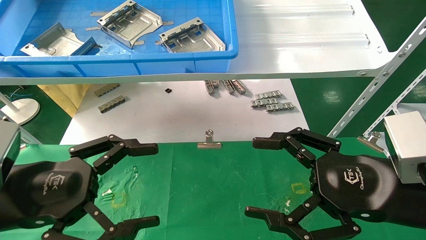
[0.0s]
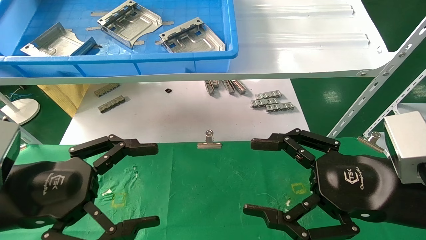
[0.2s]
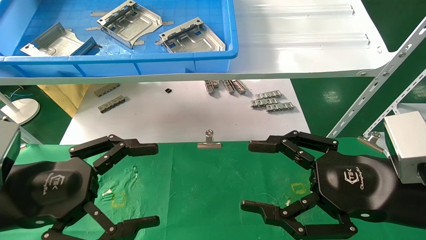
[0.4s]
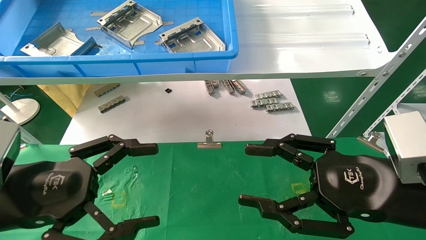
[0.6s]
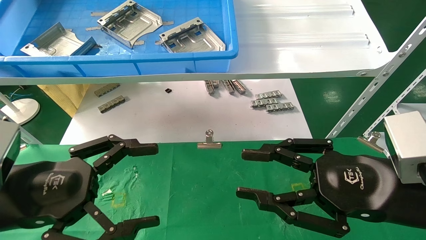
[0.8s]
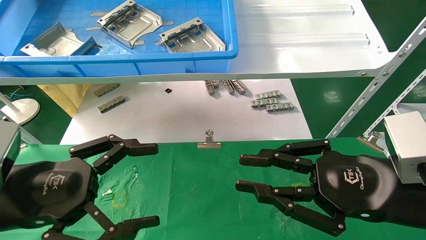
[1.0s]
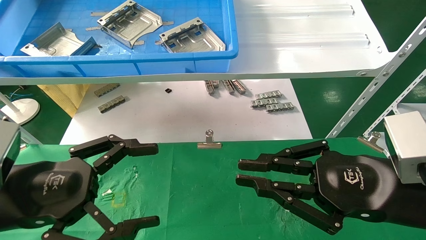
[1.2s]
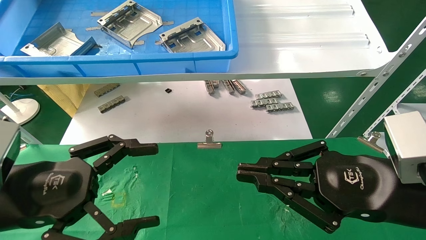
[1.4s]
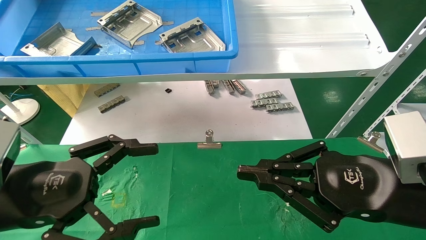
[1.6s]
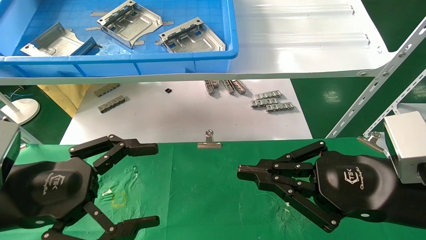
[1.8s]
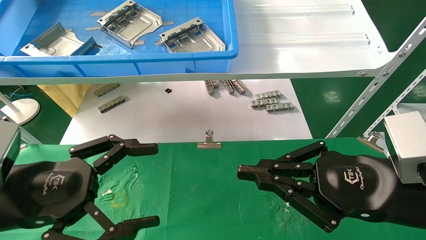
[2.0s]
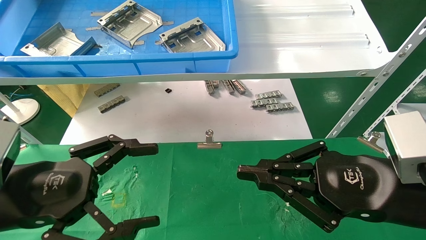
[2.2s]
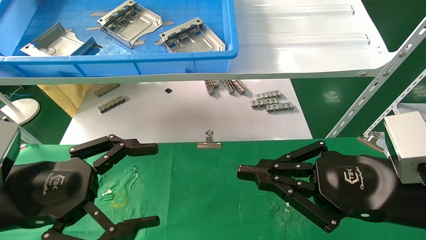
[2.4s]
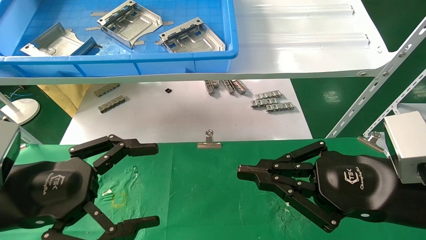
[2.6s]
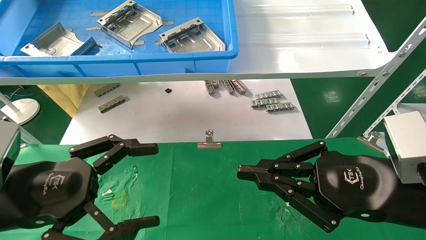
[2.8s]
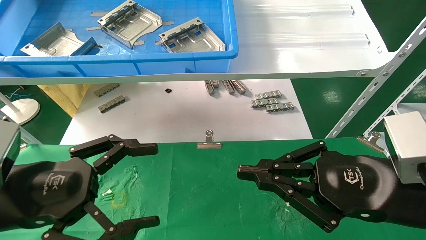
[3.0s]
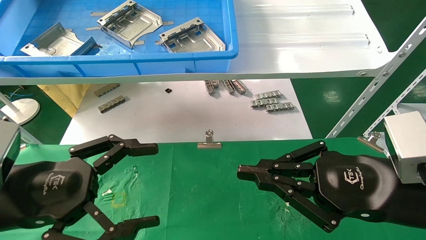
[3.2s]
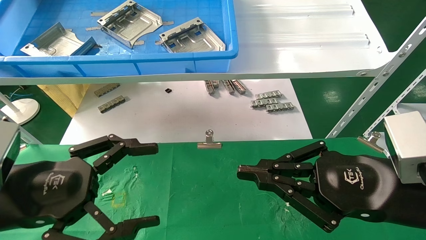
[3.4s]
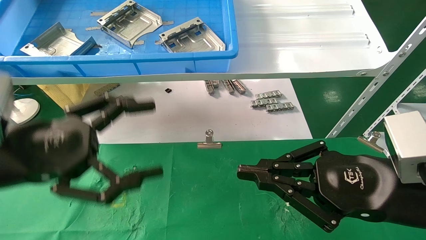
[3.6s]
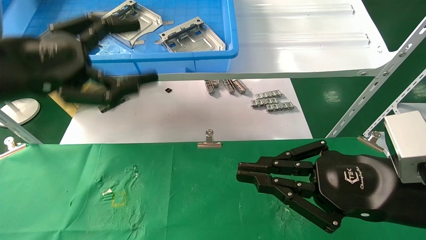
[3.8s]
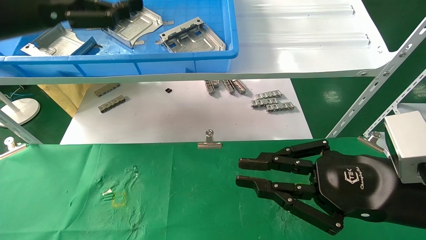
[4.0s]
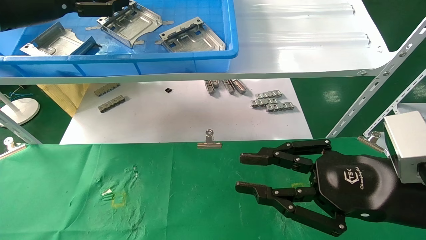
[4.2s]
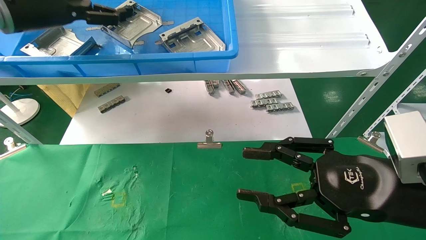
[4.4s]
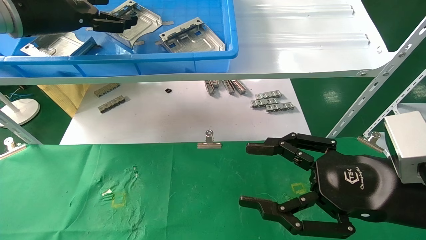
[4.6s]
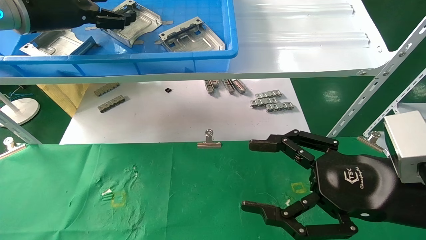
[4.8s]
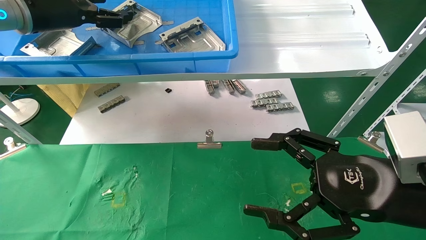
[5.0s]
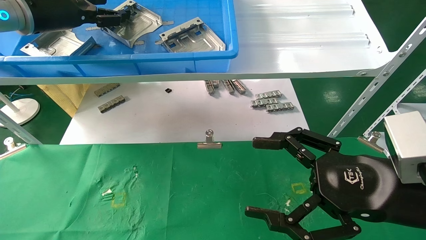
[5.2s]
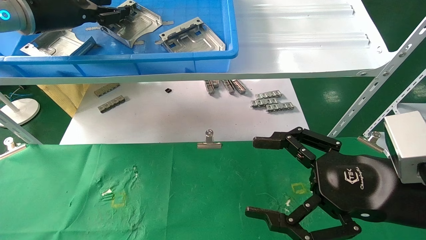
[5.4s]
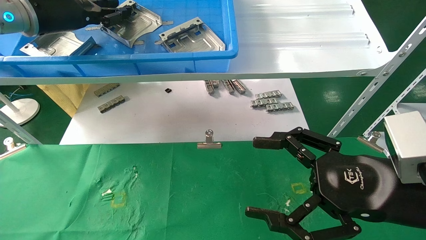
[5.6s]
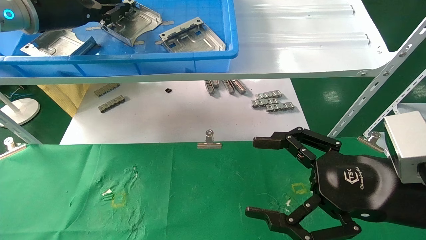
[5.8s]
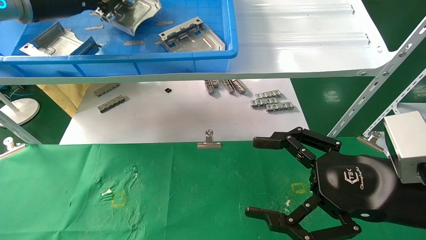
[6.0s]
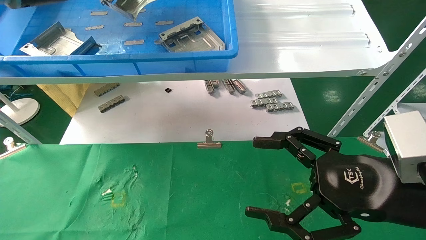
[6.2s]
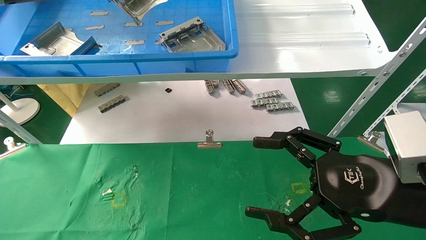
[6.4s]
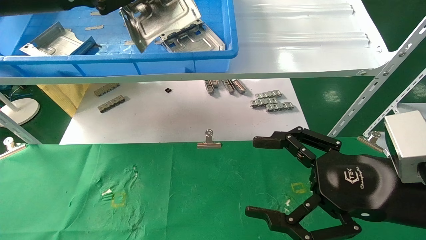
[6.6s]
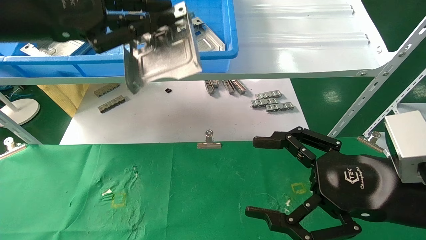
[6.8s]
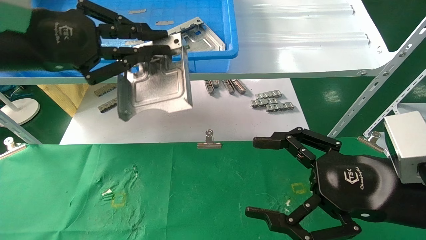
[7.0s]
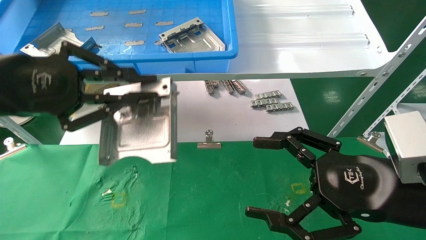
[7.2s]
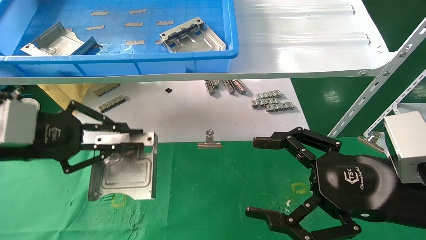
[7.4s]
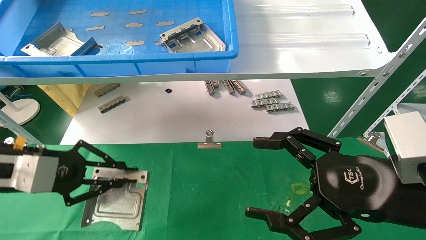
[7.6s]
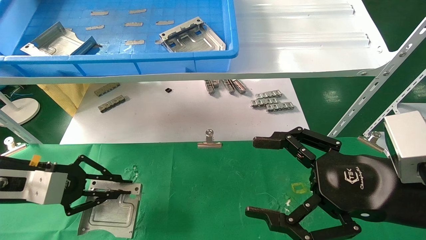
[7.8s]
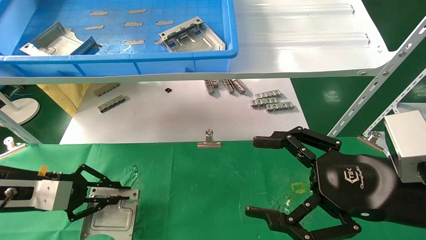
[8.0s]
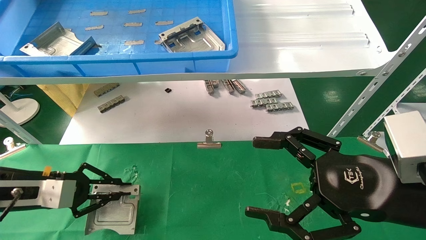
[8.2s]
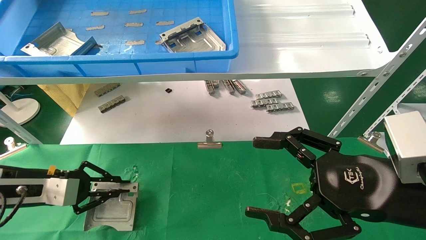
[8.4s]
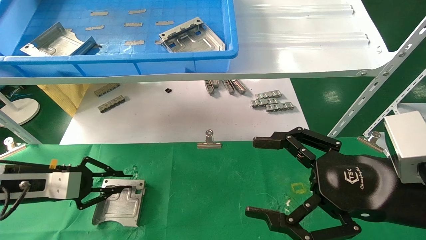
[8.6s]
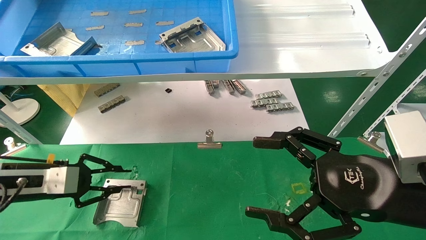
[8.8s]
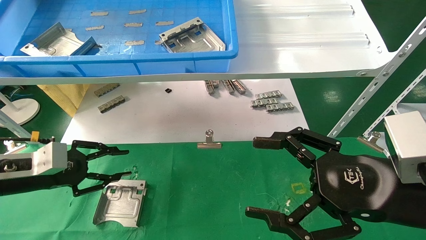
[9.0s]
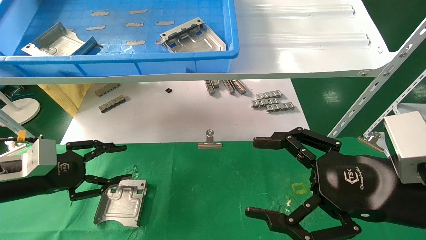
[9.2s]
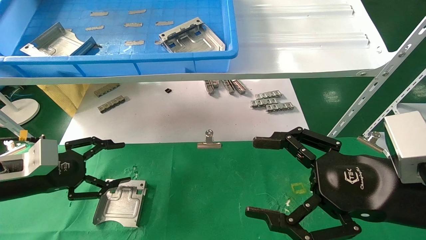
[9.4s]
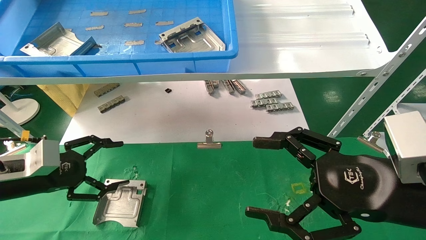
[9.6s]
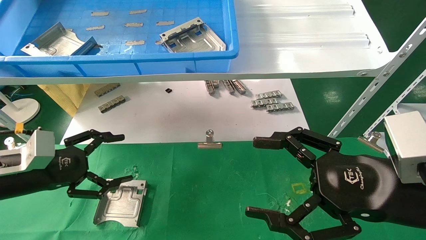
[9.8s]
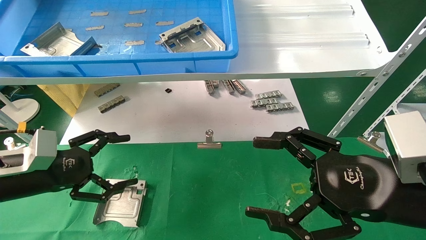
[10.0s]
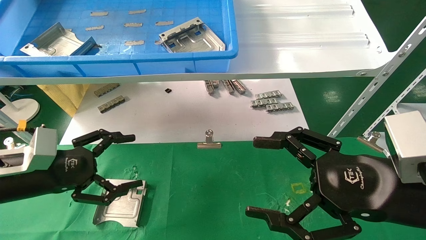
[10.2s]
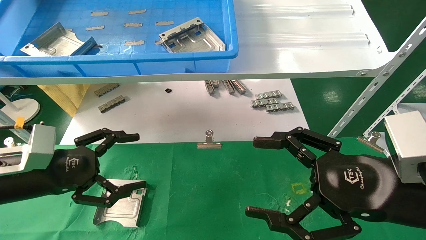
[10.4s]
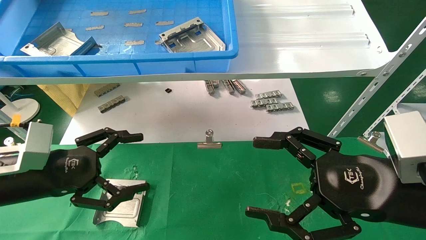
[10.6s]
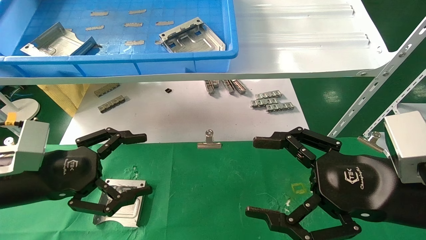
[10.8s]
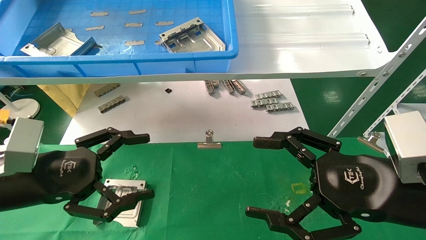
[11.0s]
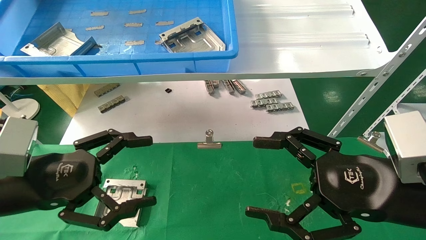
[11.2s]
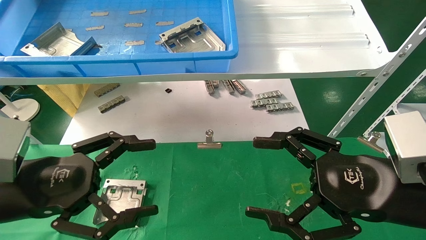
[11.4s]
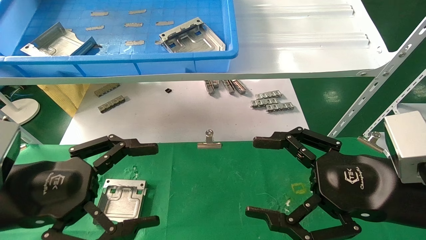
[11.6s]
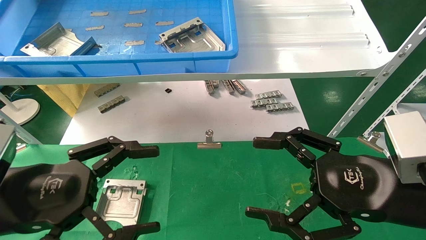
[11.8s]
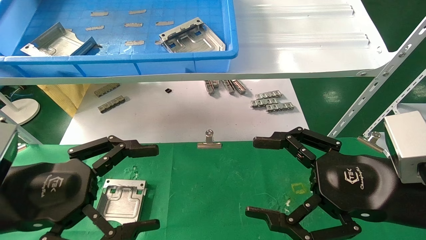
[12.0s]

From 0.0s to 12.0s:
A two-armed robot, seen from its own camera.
Task of the whole recording: use the mechanical arm to pick up the parts and place them on the table.
Step, from 3.8s to 5.8s: Pick up the hard drive bracket from the feeding area.
Step, from 6.0s to 8.6s: Place the hard drive bracket into the box.
From 0.0s to 1.6s: The right gripper closes up.
From 1.6s to 3.0s: Neither gripper changes place.
From 3.0s to 4.4s: The right gripper opens up, while the left gripper is displaced upward and forward by approximately 30 cm.
From 4.4s to 6.0s: The left gripper closes its fingers. Meanwhile the right gripper opens up.
From 6.0s to 7.6s: The left gripper moves downward and backward, about 25 cm.
From 7.6s to 9.0s: The left gripper goes some 5 cm downward.
From 9.0s to 10.4s: The left gripper shifts by some 5 cm, and opens its fingers.
From 10.4s to 12.0s: The left gripper heads backward and to the right, covering roughly 10 cm.
